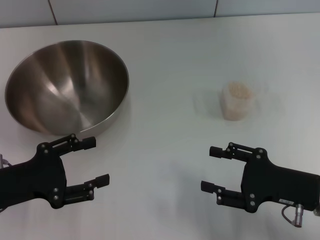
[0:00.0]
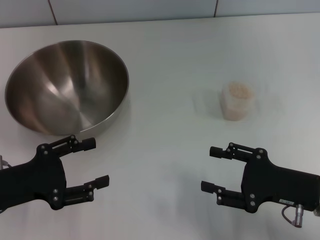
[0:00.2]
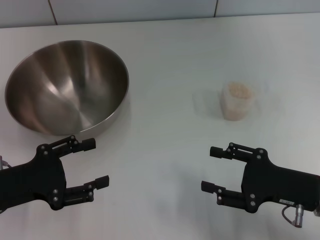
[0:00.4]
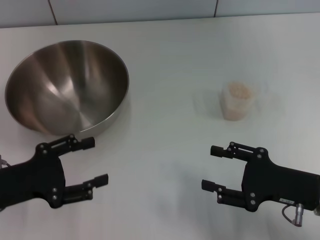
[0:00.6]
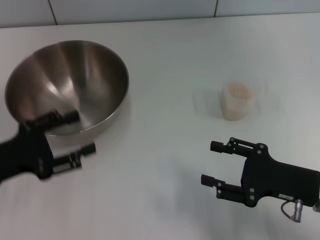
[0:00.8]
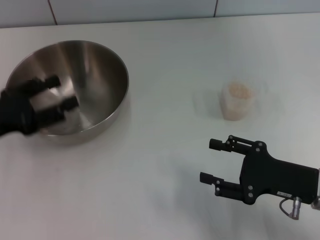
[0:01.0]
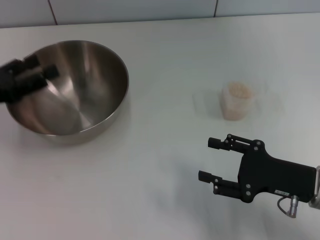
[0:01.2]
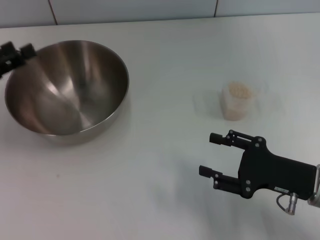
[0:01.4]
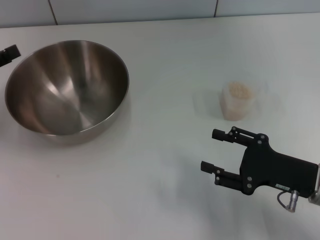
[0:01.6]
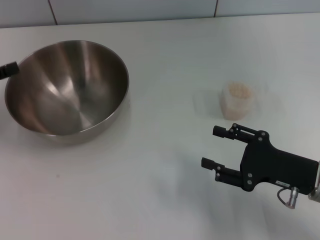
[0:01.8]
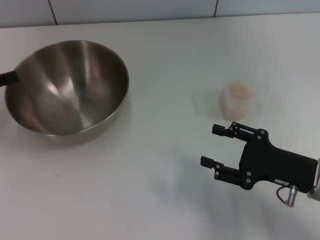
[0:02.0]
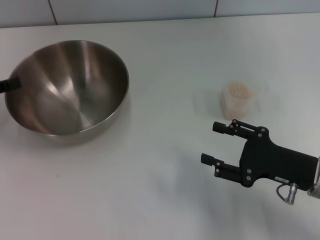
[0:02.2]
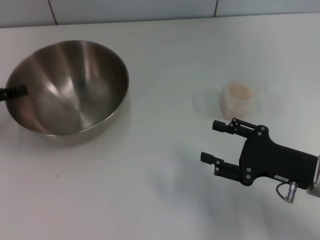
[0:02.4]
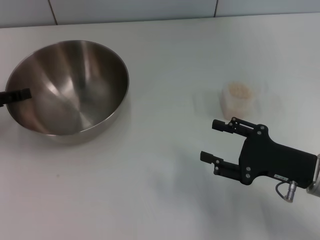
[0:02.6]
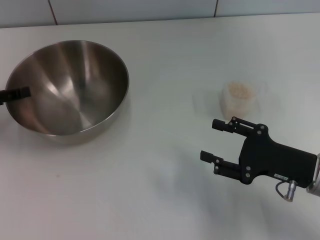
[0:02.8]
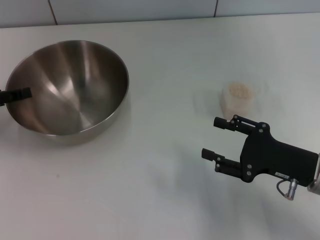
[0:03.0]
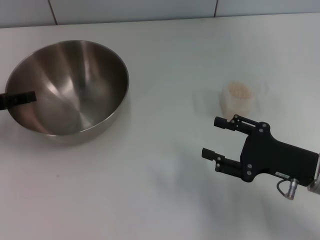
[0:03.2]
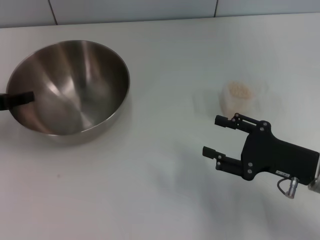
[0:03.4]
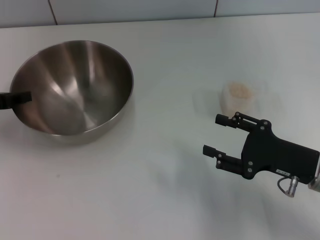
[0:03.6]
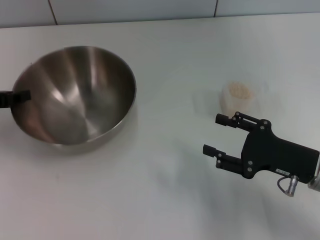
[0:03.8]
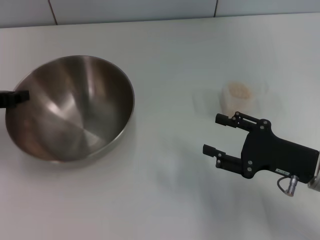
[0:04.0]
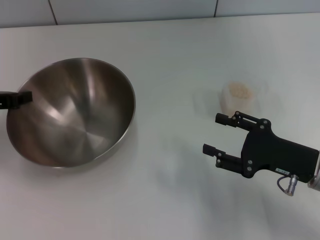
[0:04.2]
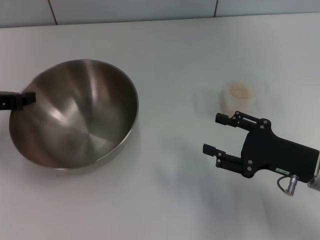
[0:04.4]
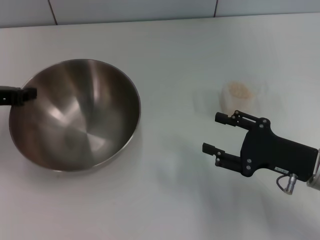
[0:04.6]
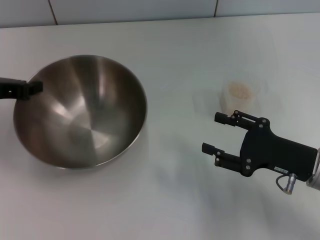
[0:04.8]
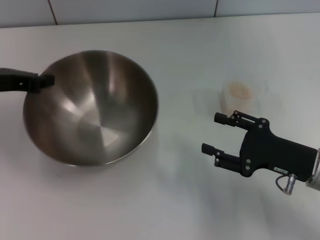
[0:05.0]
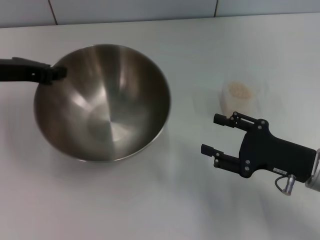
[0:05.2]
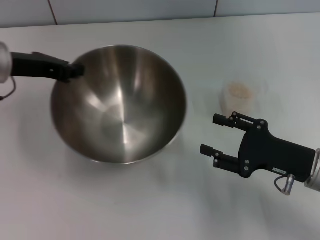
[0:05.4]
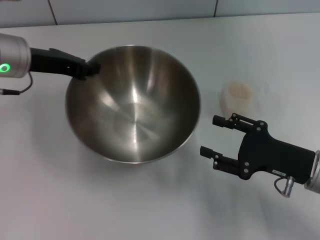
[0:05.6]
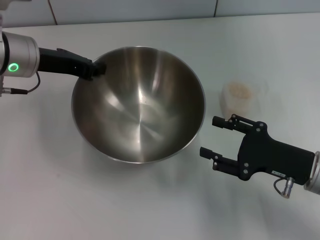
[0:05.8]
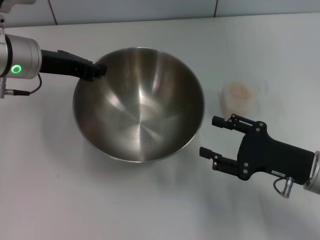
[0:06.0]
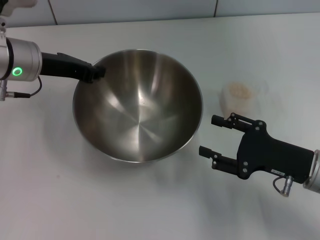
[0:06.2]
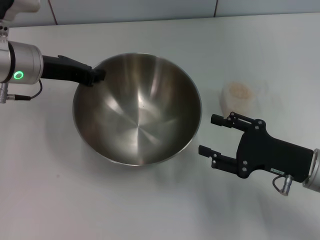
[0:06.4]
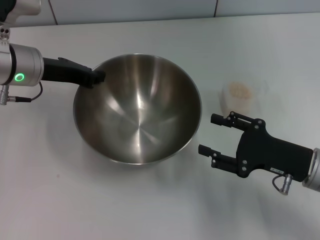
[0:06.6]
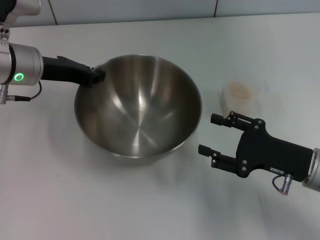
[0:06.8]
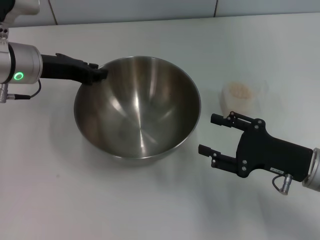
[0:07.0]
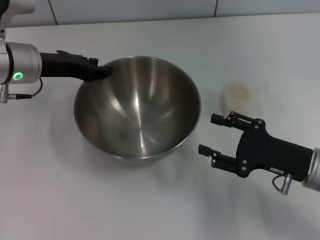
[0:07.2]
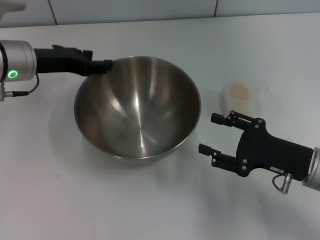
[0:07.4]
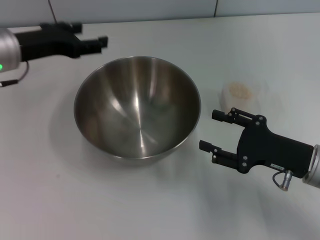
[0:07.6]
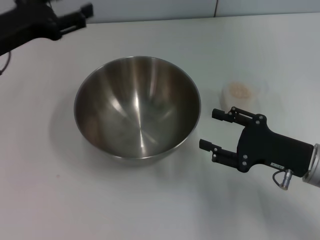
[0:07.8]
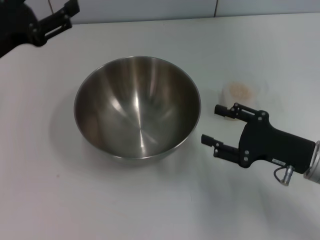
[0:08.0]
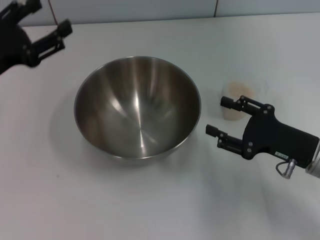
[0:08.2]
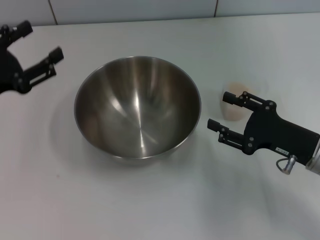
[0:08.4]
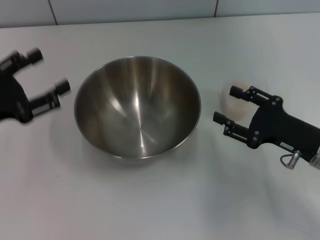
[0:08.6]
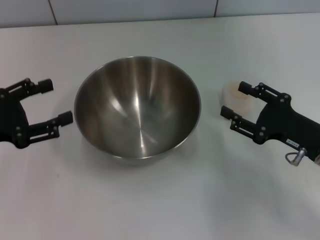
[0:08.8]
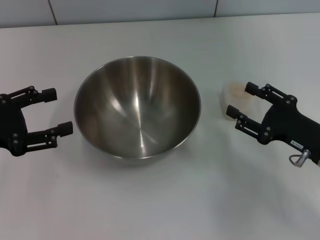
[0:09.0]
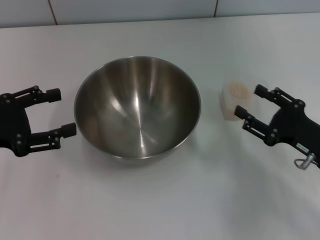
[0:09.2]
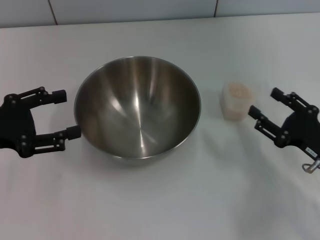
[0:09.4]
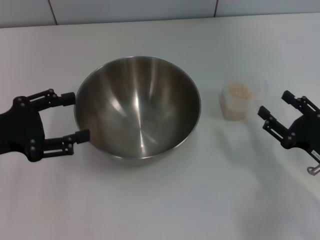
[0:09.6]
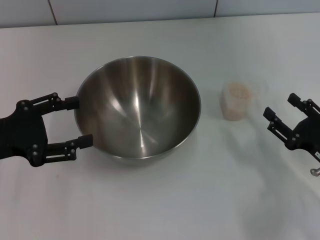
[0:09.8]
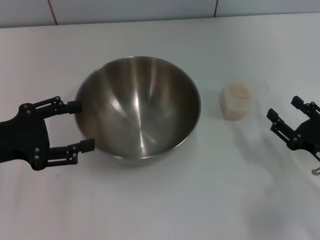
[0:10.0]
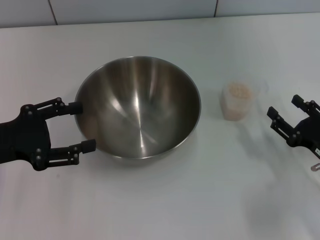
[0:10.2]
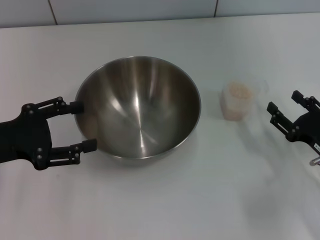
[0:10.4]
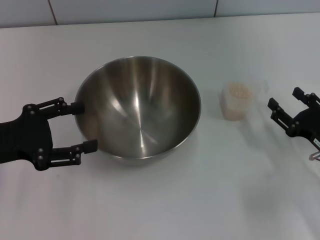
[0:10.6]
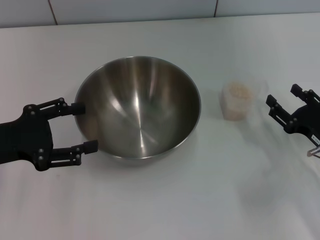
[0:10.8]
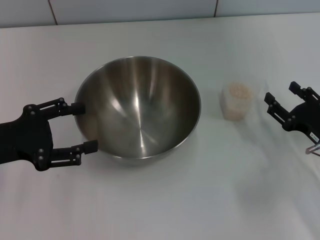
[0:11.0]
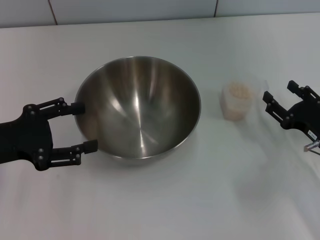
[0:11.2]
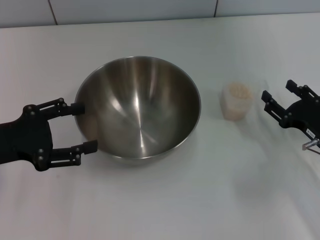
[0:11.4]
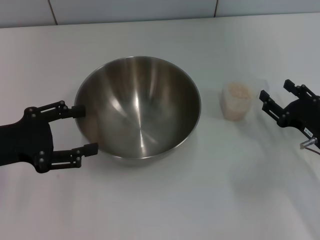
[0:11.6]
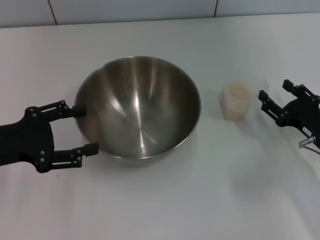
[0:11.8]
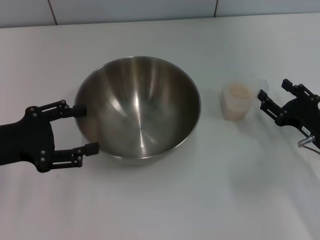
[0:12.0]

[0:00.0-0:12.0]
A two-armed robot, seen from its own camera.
Task of the whole recording: Place the bowl in the middle of the table with one hand and pour the rice from the grain cup into it with the other hand.
Step, 0:00.0 to 0:05.0: Pick up the bowl with the left gripper.
Step, 0:05.2 to 0:08.8: Place the bowl in the center of view with the left gripper.
0:00.0 to 0:01.6: The left gripper is displaced forward, to the left and upward by about 15 cm.
0:03.0 to 0:04.4: The left gripper closes up.
0:04.4 to 0:06.0: The left gripper is displaced to the right and forward by some 10 cm.
0:06.0 to 0:07.6: The left gripper opens its fingers.
0:07.6 to 0:09.0: The left gripper shifts roughly 15 cm backward and to the left.
0:10.4 to 0:12.0: There are only small adjustments of the grippers.

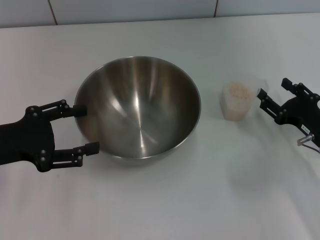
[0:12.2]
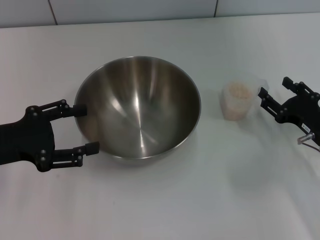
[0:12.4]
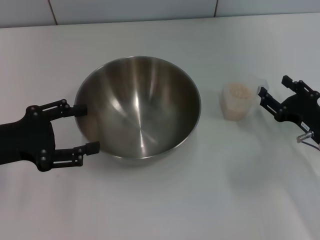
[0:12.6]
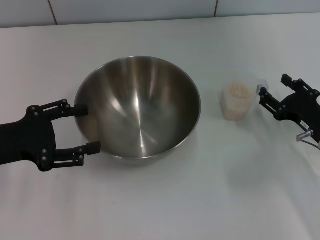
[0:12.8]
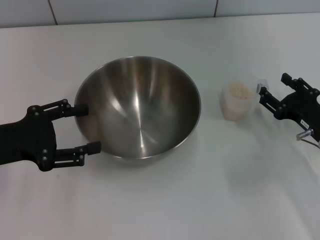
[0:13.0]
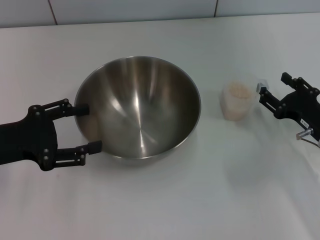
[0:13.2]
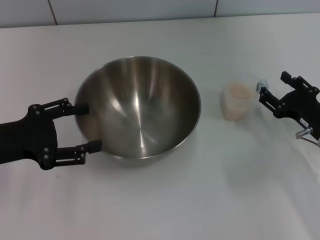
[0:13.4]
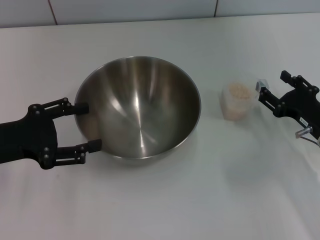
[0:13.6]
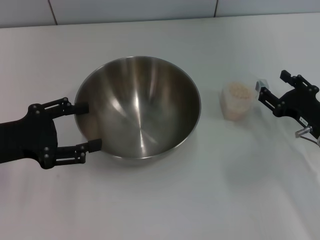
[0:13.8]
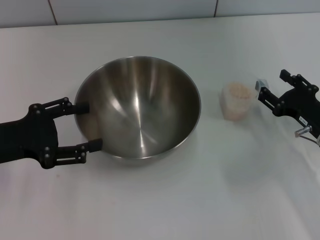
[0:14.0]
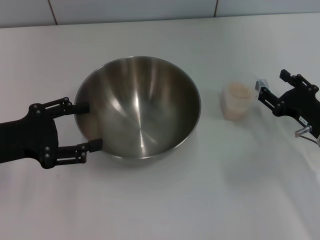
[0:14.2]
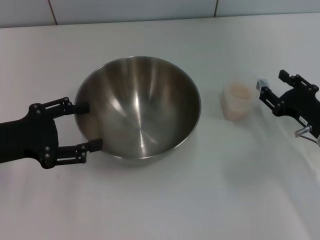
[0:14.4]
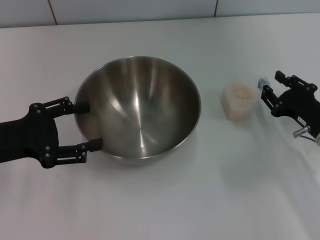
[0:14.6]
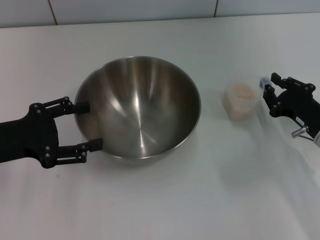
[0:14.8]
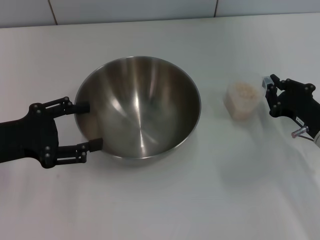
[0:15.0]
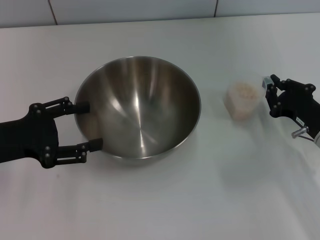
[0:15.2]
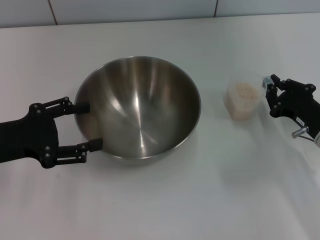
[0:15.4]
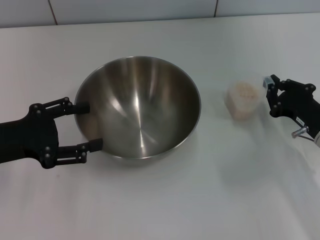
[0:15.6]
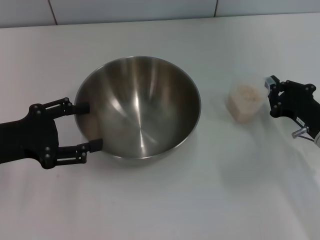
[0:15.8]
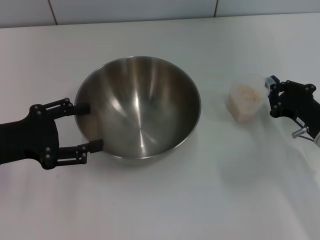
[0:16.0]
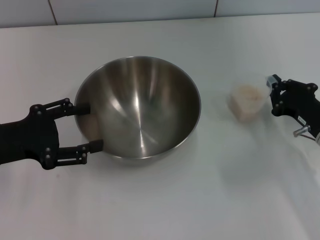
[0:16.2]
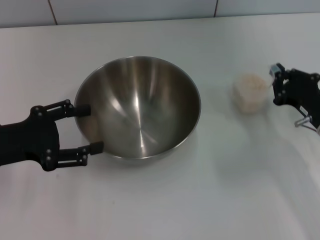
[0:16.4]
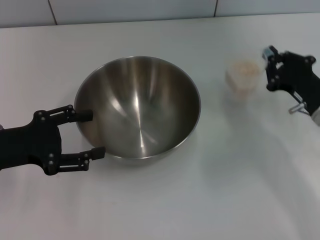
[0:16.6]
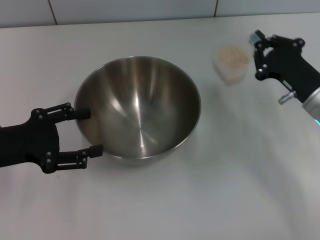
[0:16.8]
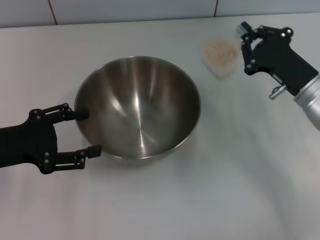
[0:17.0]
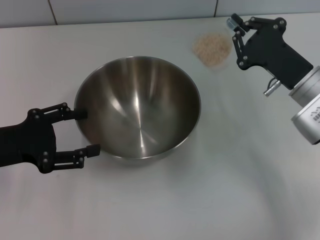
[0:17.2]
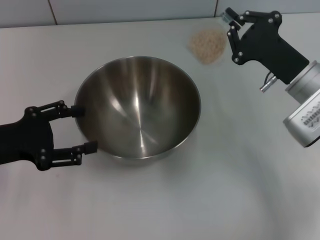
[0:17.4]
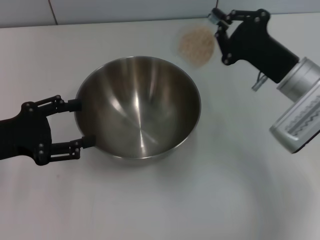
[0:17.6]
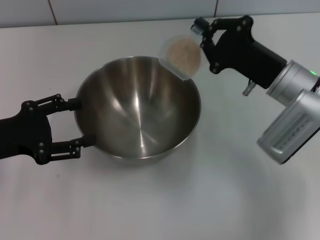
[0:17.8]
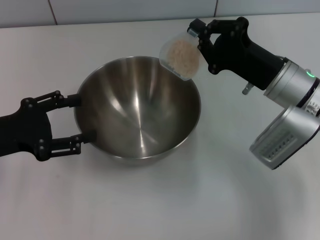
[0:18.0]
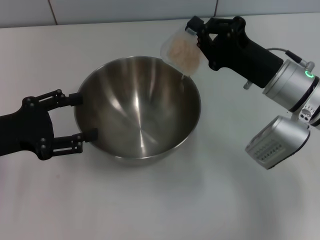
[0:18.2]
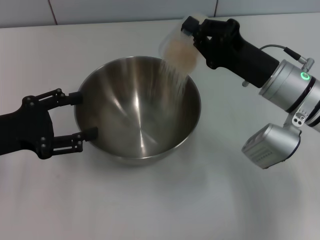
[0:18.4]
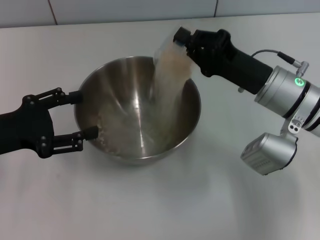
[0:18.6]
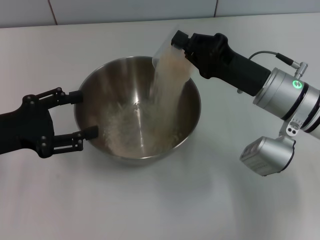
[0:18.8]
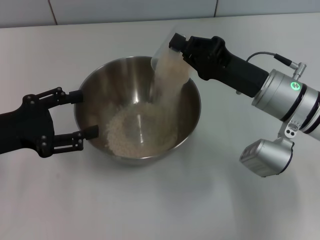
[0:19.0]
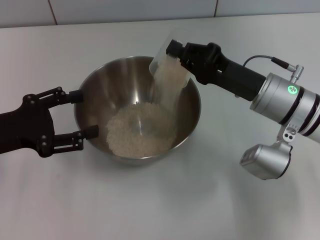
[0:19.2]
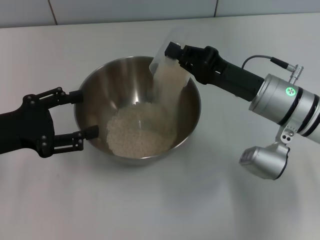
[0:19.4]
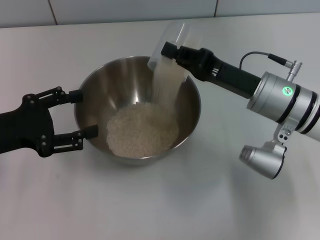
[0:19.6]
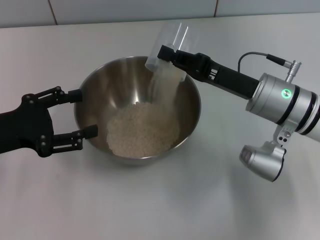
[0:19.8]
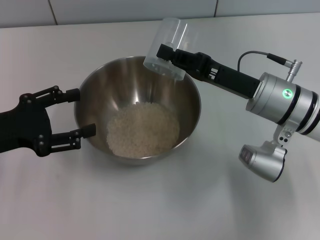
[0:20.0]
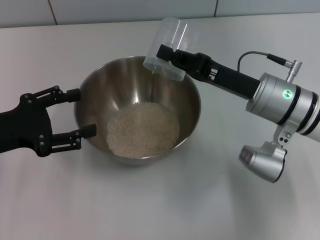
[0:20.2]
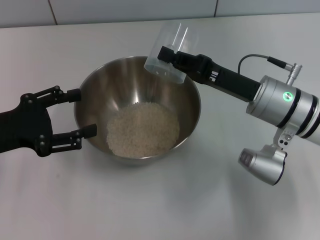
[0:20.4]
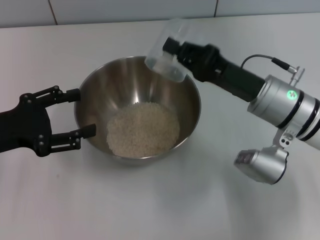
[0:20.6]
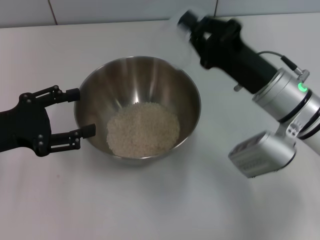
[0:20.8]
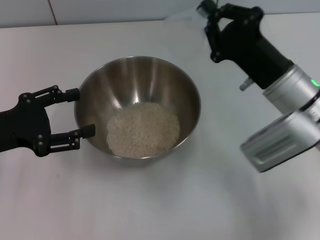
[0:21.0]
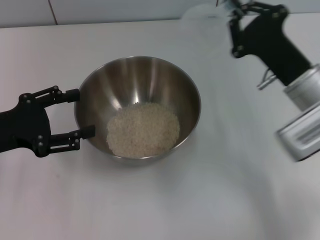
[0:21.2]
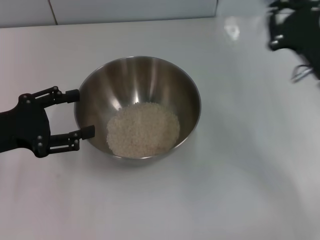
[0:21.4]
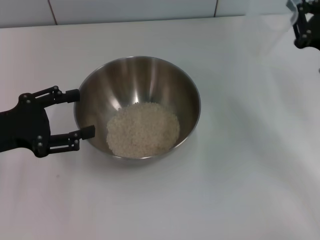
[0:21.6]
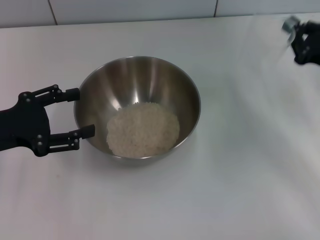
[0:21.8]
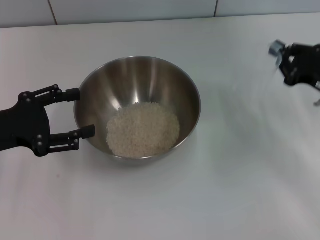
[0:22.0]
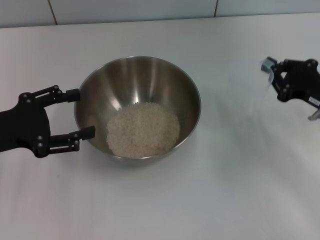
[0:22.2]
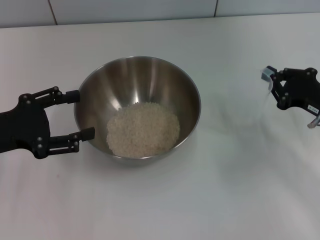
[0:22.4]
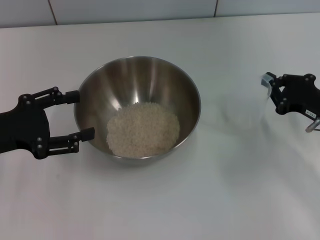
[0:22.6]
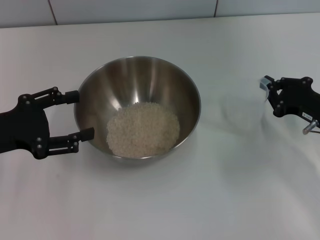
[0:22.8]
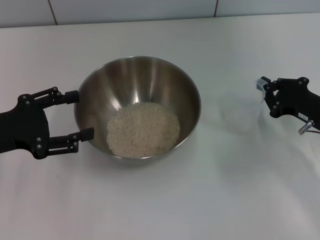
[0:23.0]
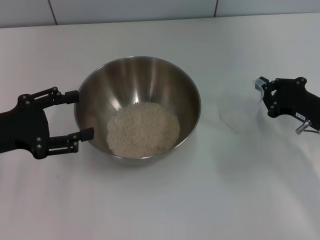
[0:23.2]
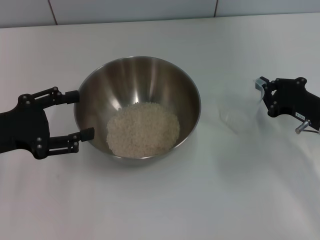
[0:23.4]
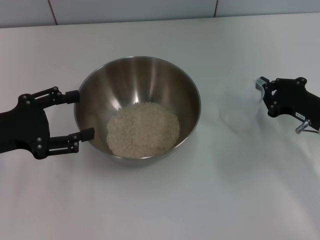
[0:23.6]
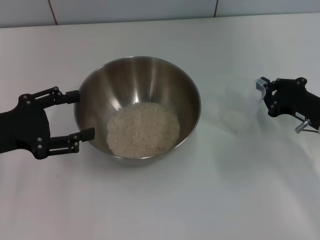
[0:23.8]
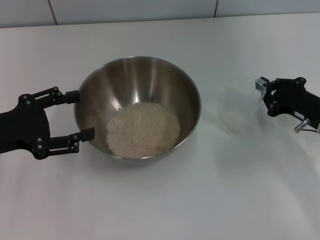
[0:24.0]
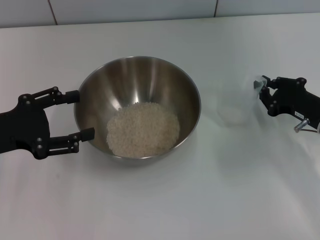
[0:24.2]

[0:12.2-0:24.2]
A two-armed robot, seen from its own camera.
Task of the whole recording: Place the bowl in the middle of the table with one hand and pour the rice from the grain cup into it with the other hand.
Step, 0:12.2 to 0:16.8: Pick up the cup with rice in it with the right gripper.
Step, 0:17.0 to 0:21.4: Pour the rice from the cup into the bowl with the right gripper.
0:12.2 to 0:13.8: Both grippers stay about where they are.
0:13.8 to 0:15.2: The right gripper closes its fingers.
0:15.2 to 0:16.6: The grippers stay close to where they were, moving slightly.
0:16.6 to 0:18.2: The right gripper heads to the left, covering approximately 5 cm.
0:21.2 to 0:22.6: The right gripper is displaced to the right by approximately 10 cm.
0:22.6 to 0:24.2: The grippers stay close to where they were, moving slightly.
